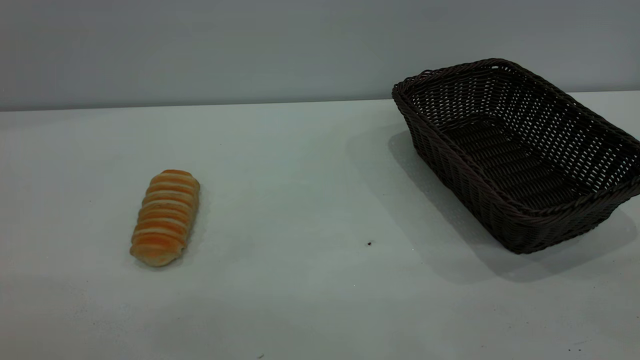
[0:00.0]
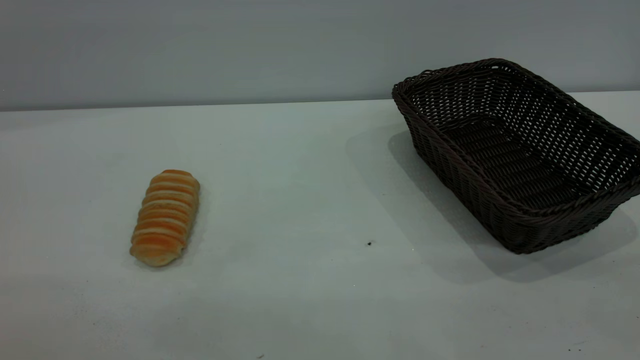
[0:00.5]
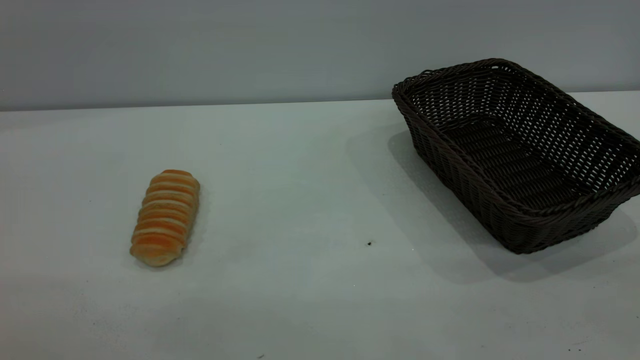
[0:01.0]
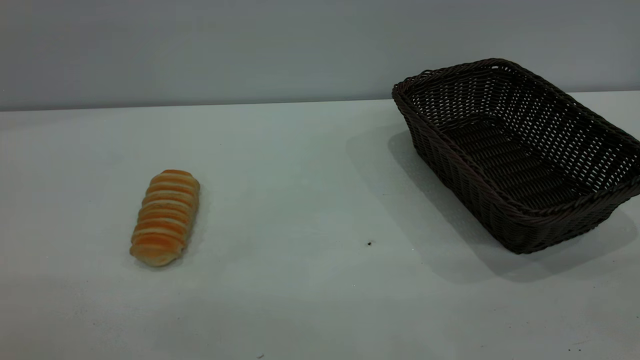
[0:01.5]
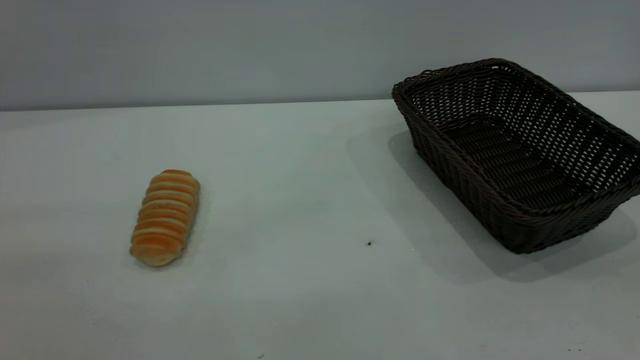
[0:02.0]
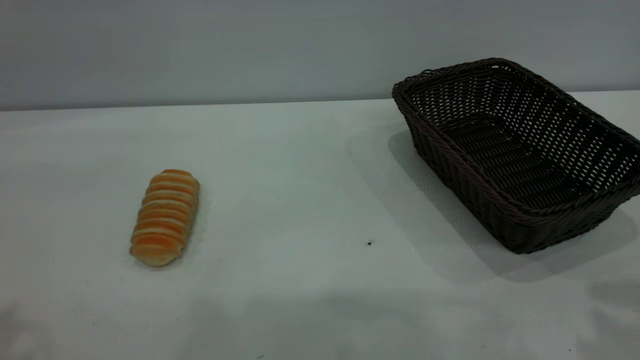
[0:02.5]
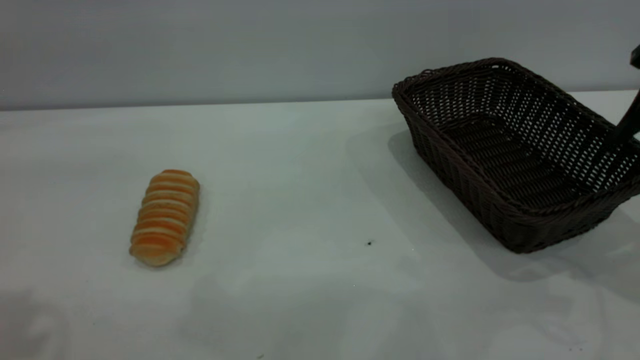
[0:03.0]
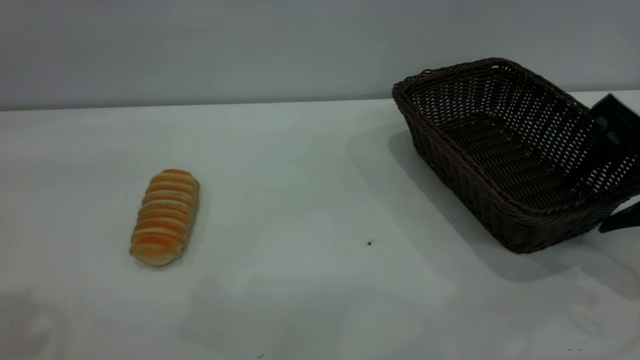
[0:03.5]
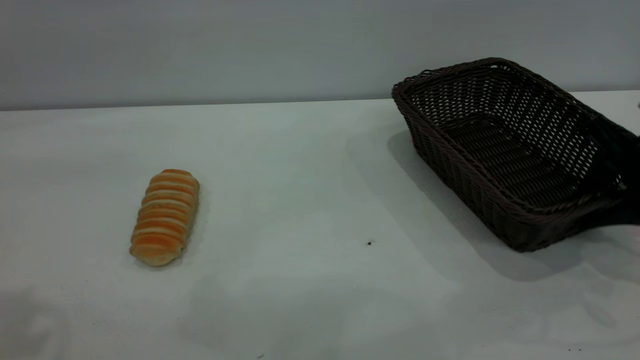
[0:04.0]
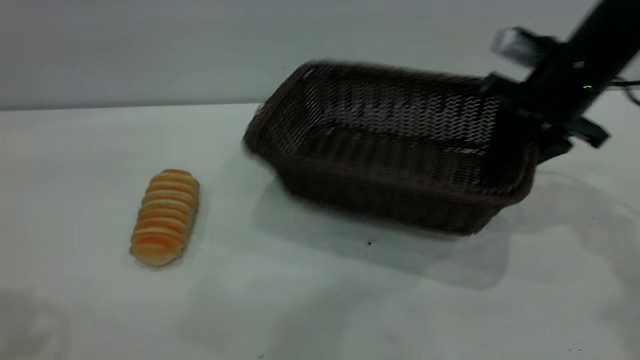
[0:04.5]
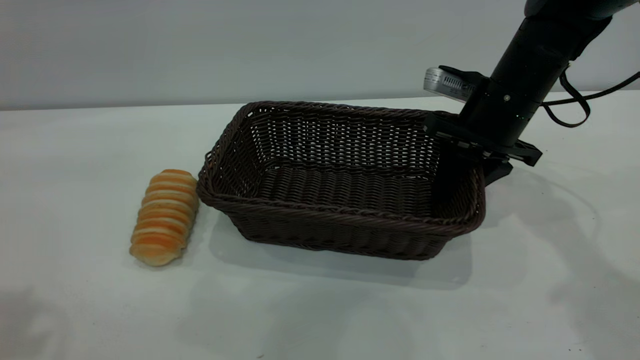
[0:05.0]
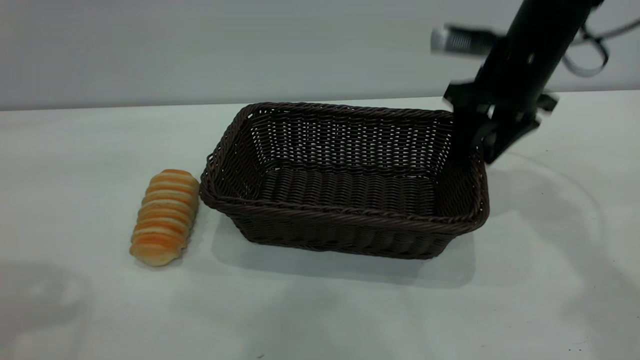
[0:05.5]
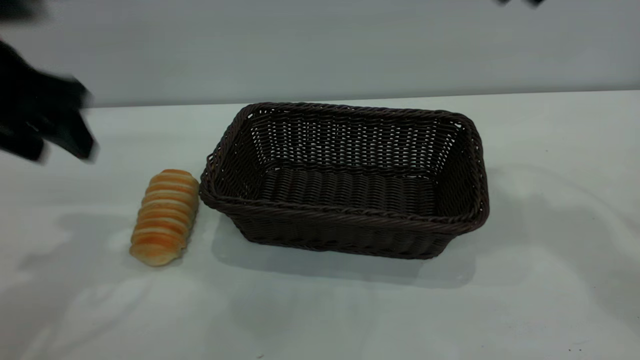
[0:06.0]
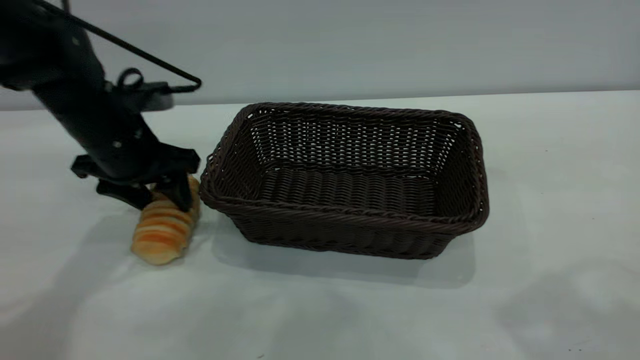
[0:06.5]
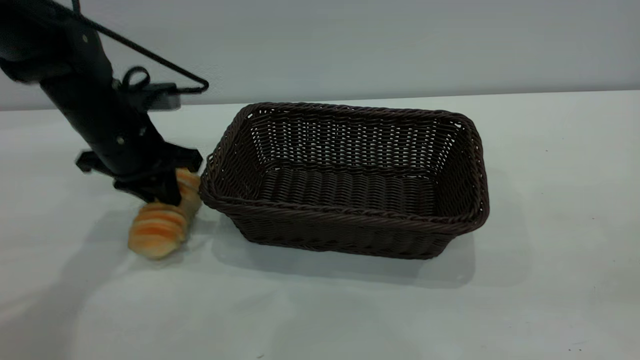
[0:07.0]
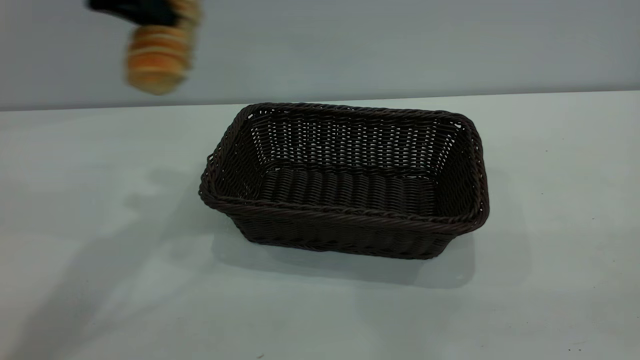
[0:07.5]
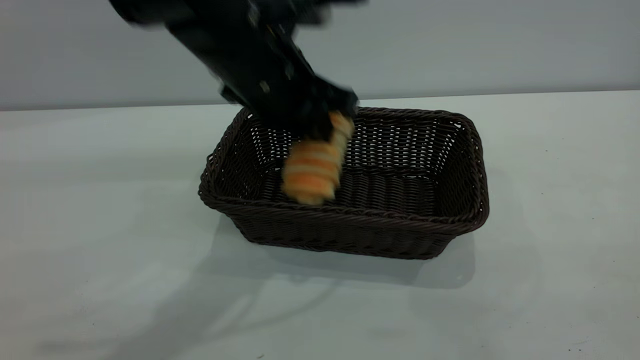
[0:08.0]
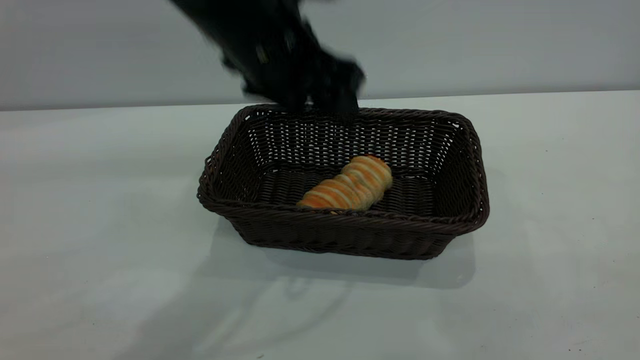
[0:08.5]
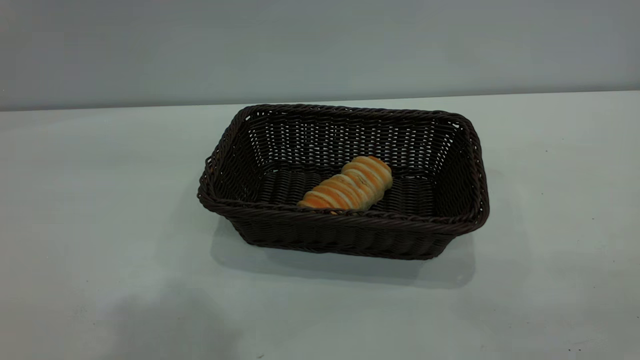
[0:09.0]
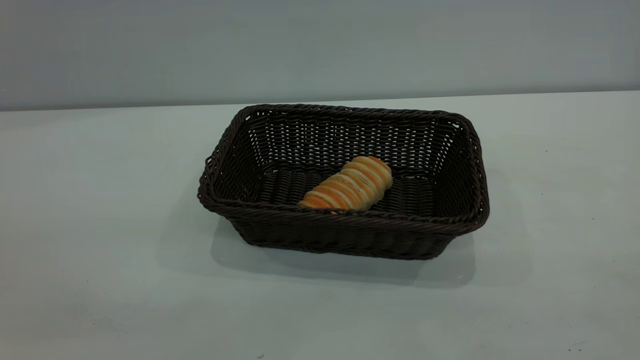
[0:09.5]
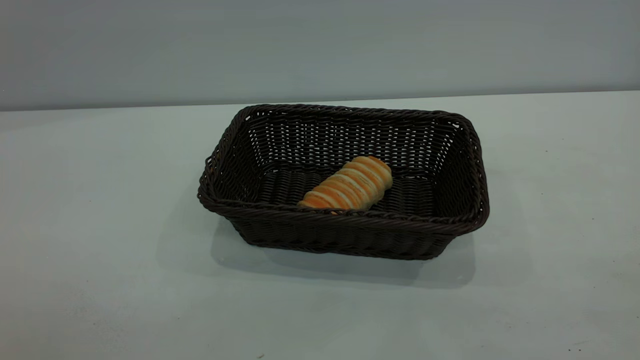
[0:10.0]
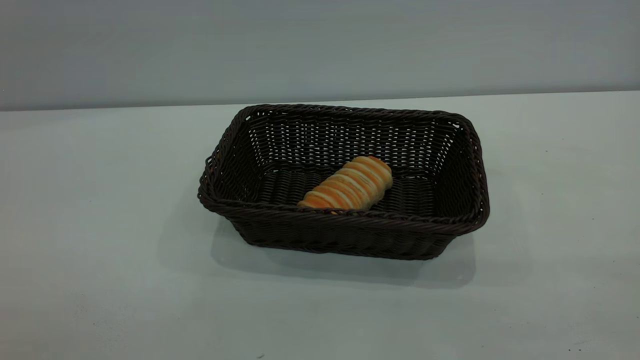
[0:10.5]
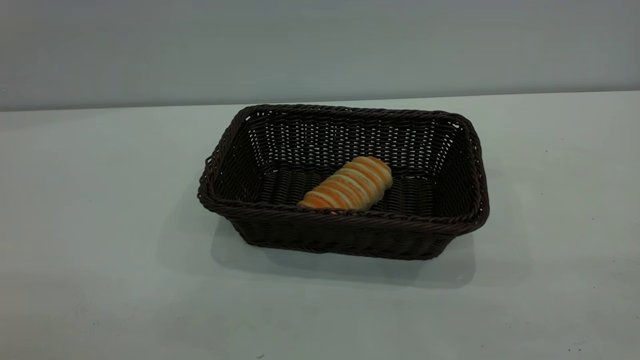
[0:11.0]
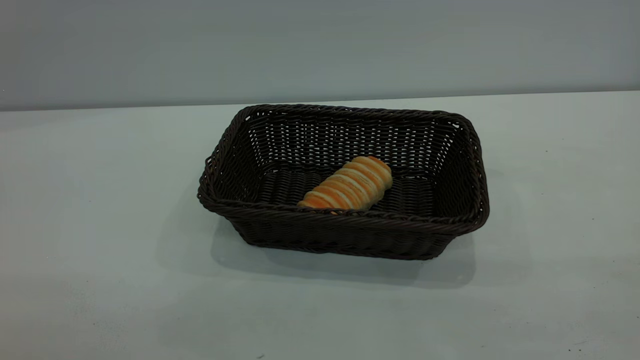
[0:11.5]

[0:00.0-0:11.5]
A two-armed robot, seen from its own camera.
Task of the whole recording: One hand grasps the black basket and places it in the middle of the table, while the other hand picks up the long bread and puts it into the black basket.
Step, 0:00.0 to 0:05.5: Move the basket to the center of view.
Step, 0:07.5 to 0:08.5: place the bread into the basket.
0:02.0 to 0:04.0: The right gripper moves forward and downward, approximately 35 cm, and closes up.
0:04.0 to 0:06.0: The right gripper swings up and down, roughly 25 cm each way, with 2 reversals, and opens. Meanwhile the left gripper shifts approximately 20 cm downward and forward.
0:06.0 to 0:07.5: The left gripper goes some 15 cm upward, to the right and forward, and closes up.
0:07.5 to 0:09.5: The left gripper heads backward, covering roughly 30 cm, and opens its fingers.

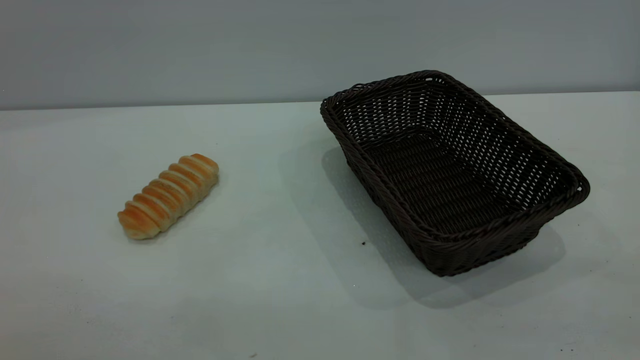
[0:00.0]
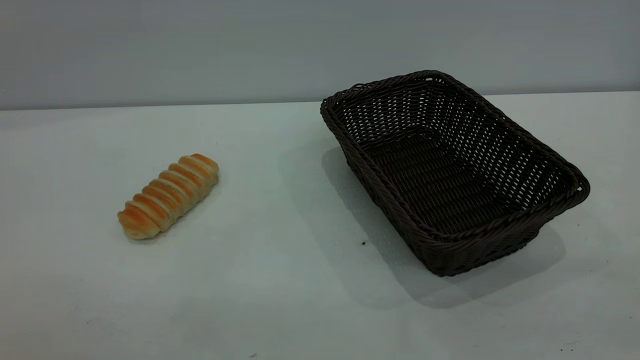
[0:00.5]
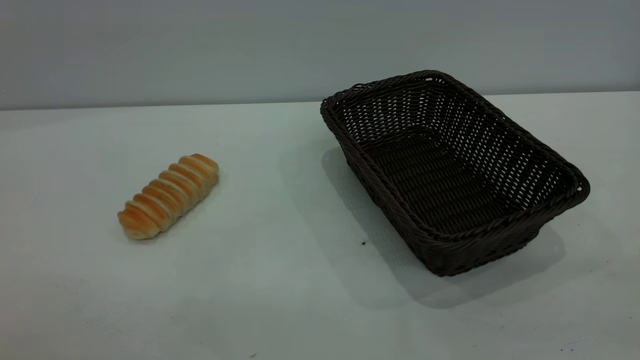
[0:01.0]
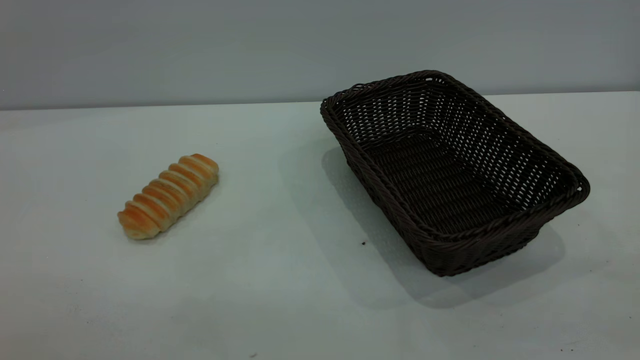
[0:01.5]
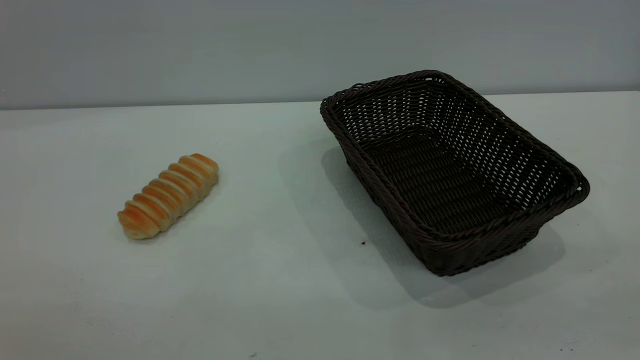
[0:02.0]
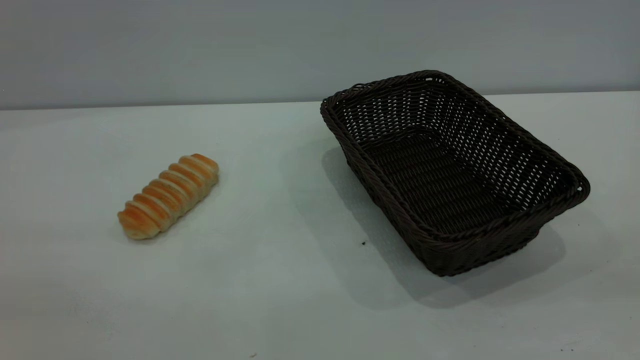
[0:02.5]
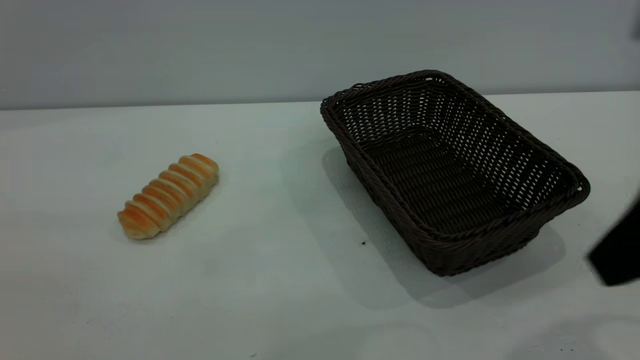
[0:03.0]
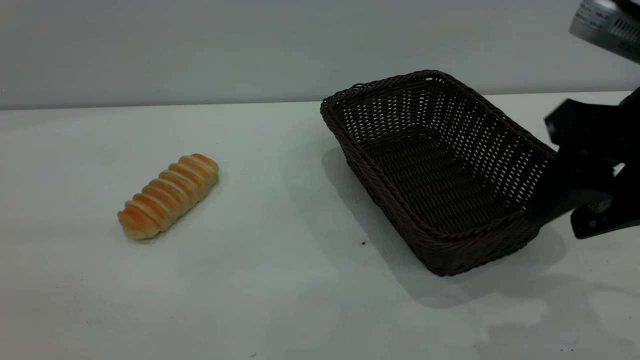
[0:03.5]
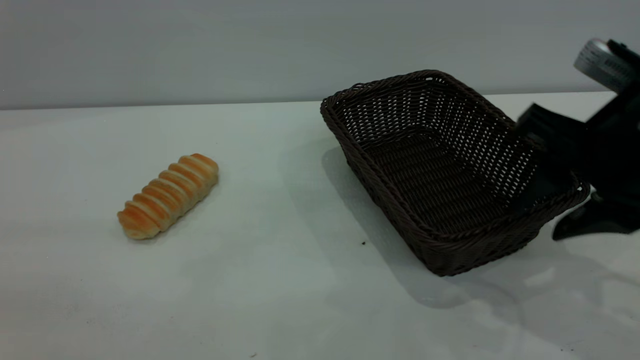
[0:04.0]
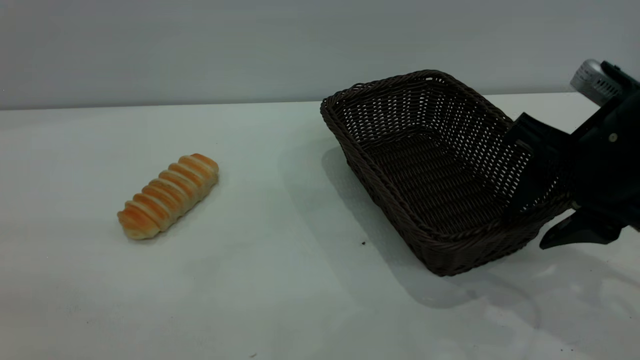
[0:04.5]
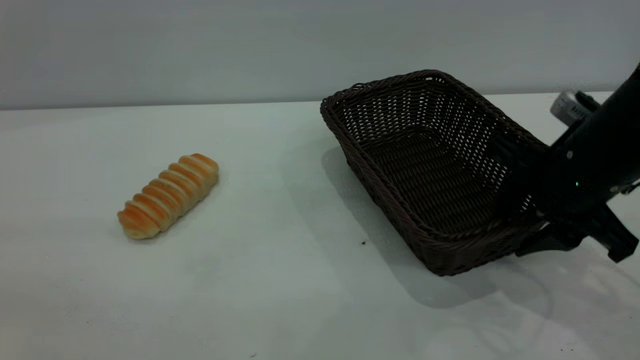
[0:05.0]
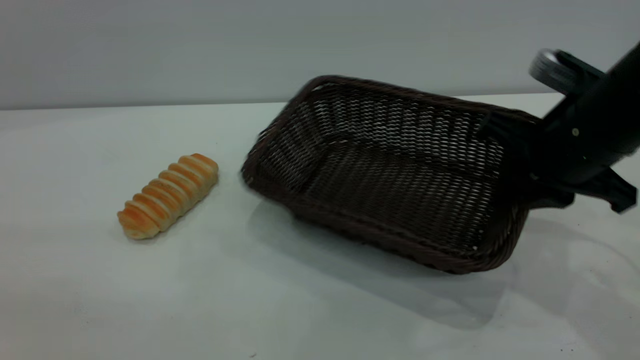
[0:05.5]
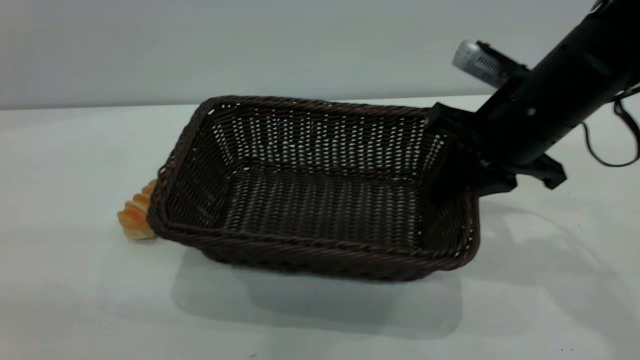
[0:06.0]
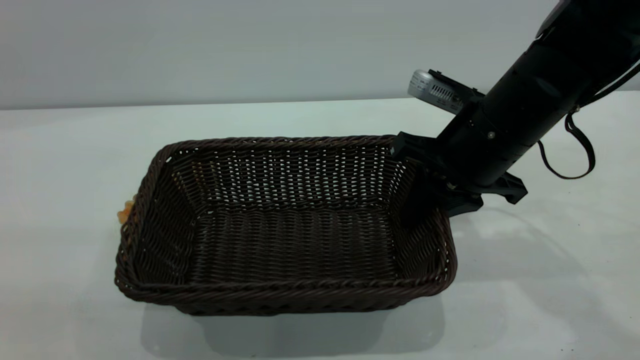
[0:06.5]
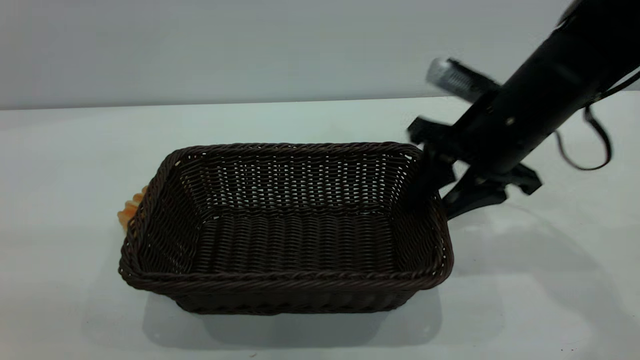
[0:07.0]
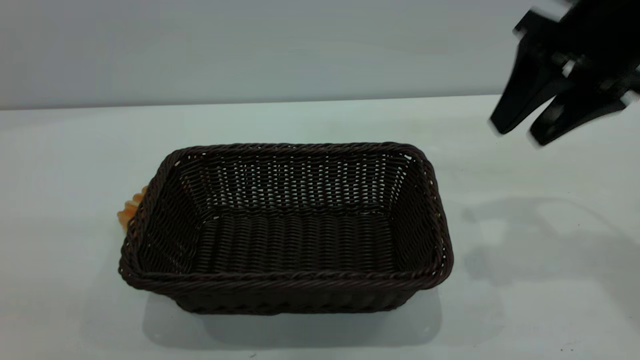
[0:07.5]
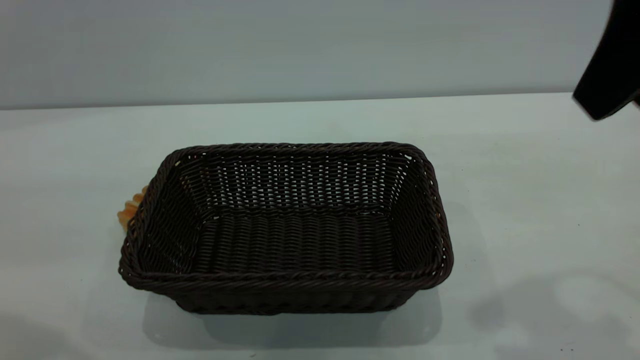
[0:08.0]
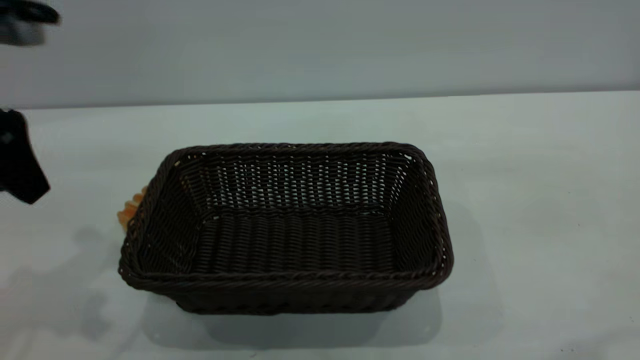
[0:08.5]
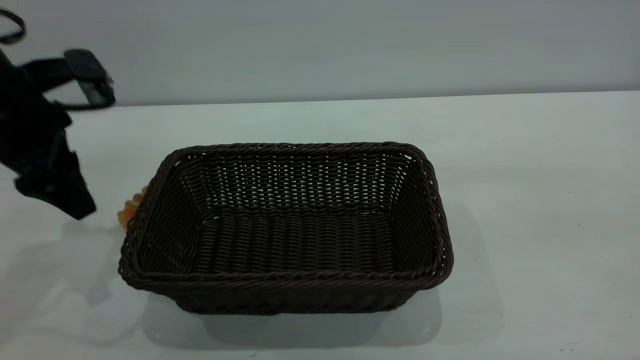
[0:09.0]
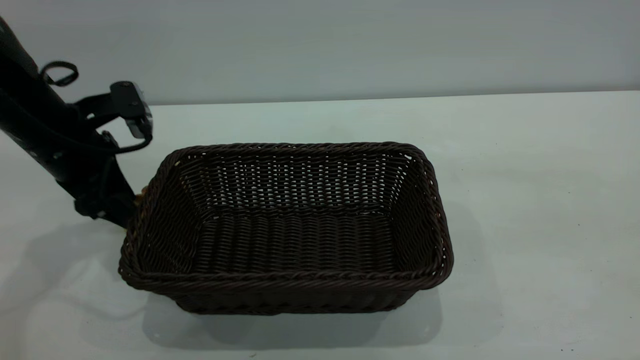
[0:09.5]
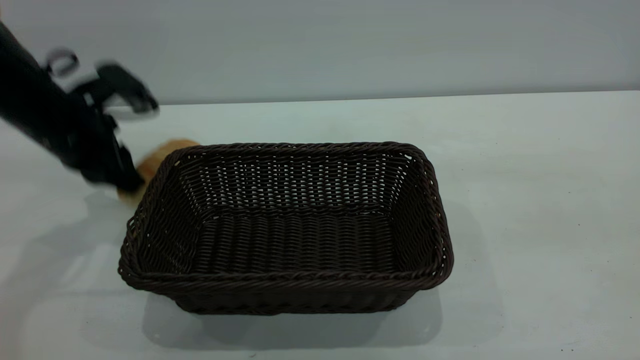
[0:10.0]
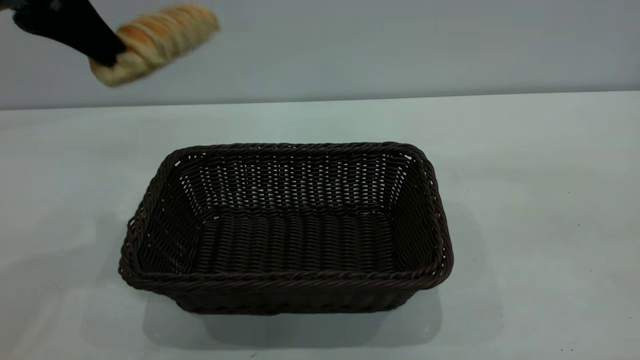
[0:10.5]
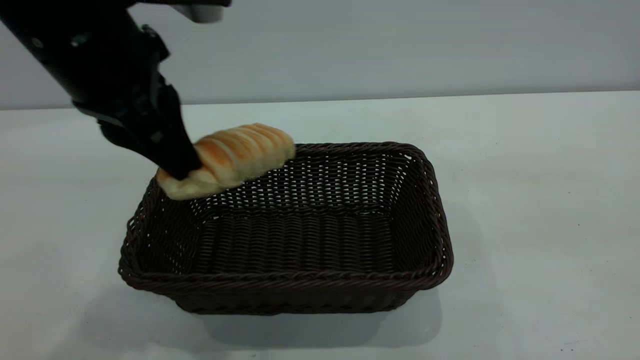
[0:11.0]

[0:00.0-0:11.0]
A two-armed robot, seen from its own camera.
Task of the whole recording: One hand grasps the black basket and places it in the middle of the table, while the other hand picks up the long bread and puts it into the black basket.
Step, 0:00.0 to 0:07.0: Move the basket to the center of view.
0:02.0 to 0:03.5: The right gripper is displaced forward and downward by roughly 25 cm.
0:03.5 to 0:05.5: The right gripper goes some 10 cm forward and downward, and closes.
0:05.5 to 0:07.5: The right gripper heads upward, covering approximately 10 cm, and opens its fingers.
0:07.5 to 0:09.0: The right gripper heads backward and upward, covering roughly 25 cm. Meanwhile the left gripper heads forward and downward, covering some 35 cm.
0:09.0 to 0:11.0: The left gripper moves up and down over about 20 cm, changing direction 2 times, and closes up.
